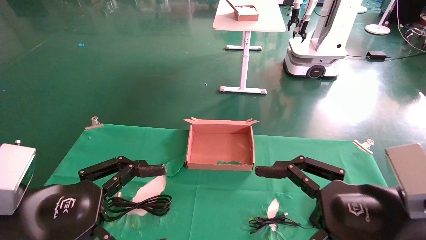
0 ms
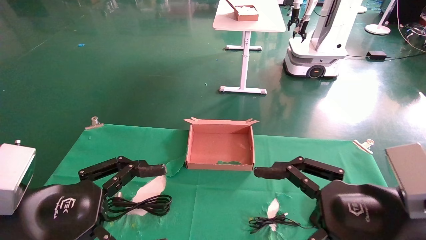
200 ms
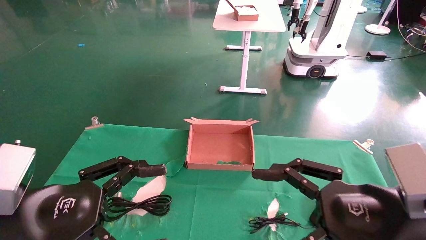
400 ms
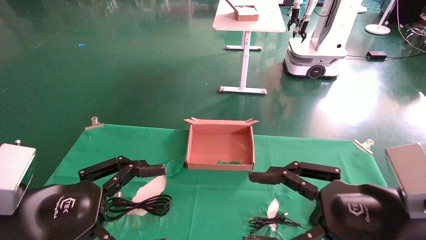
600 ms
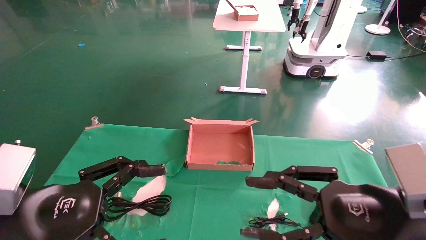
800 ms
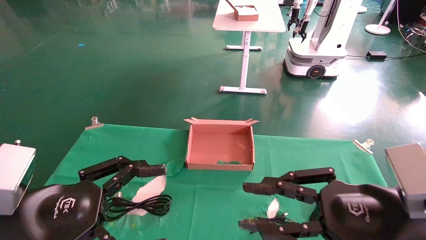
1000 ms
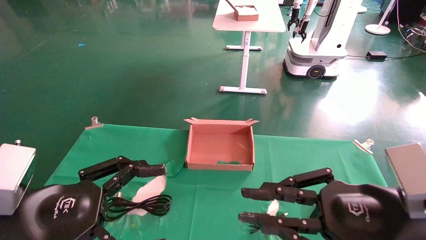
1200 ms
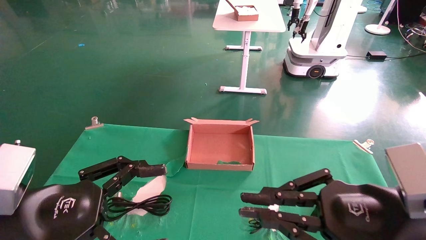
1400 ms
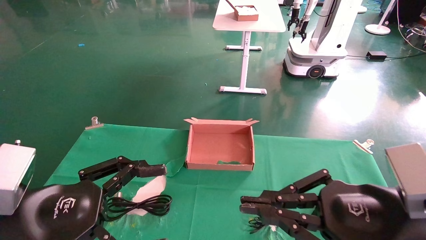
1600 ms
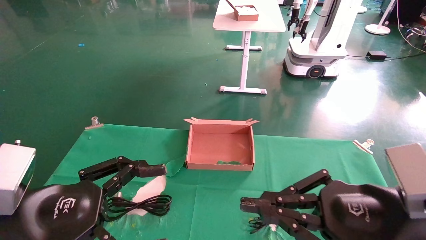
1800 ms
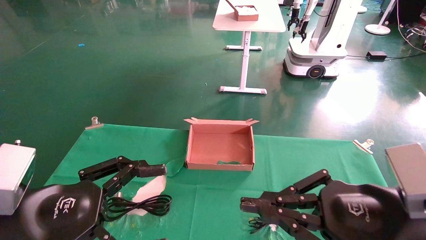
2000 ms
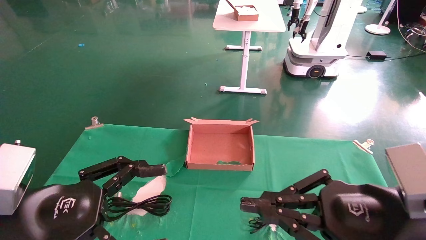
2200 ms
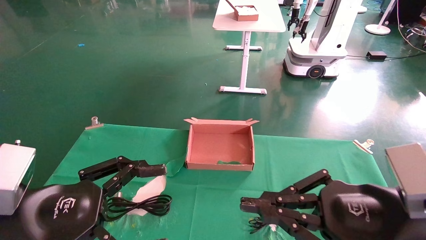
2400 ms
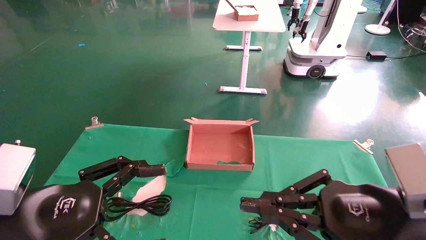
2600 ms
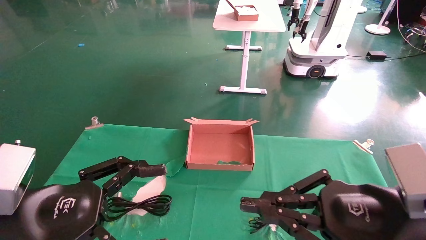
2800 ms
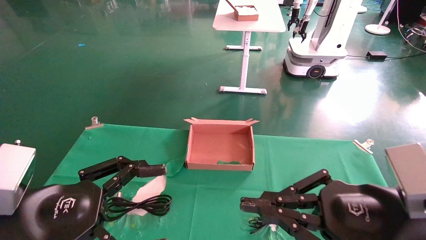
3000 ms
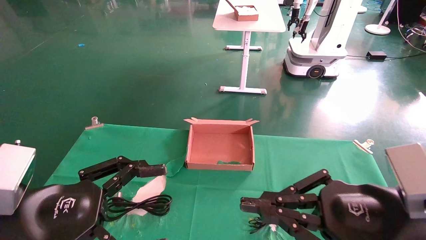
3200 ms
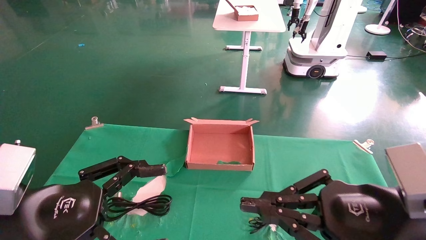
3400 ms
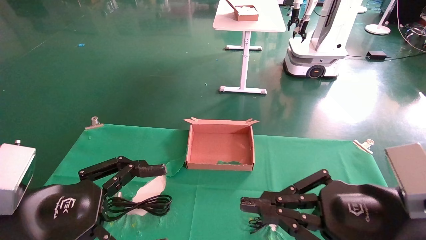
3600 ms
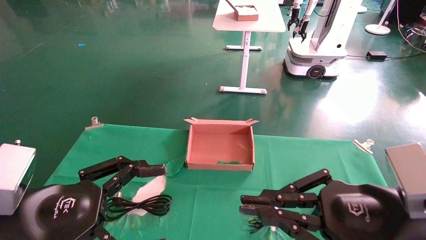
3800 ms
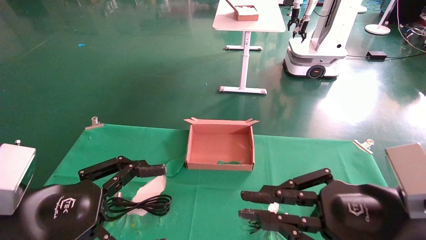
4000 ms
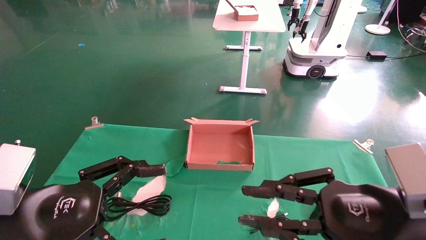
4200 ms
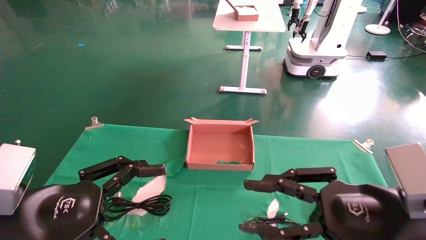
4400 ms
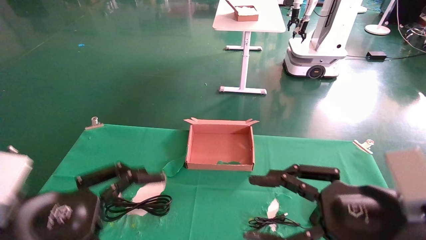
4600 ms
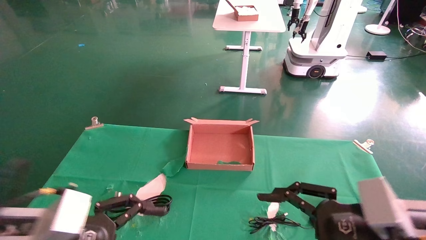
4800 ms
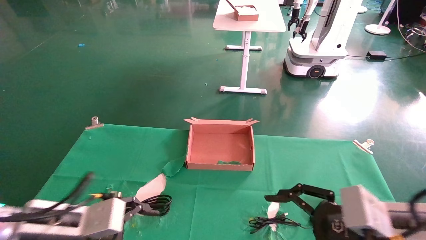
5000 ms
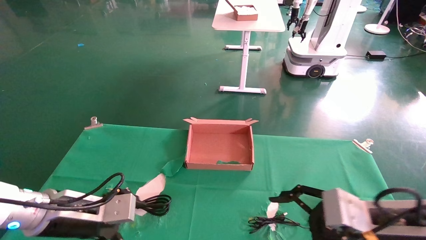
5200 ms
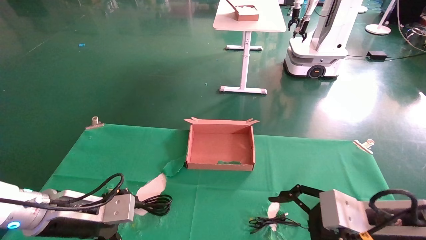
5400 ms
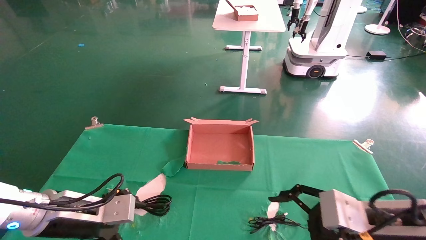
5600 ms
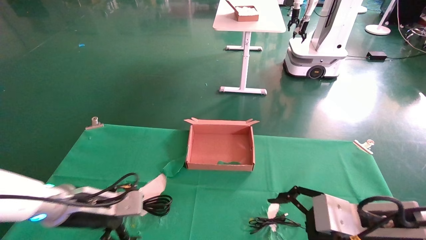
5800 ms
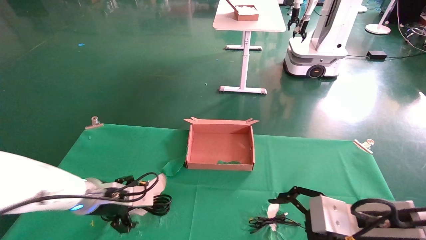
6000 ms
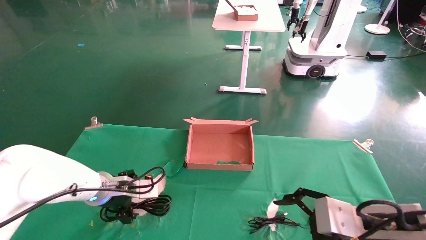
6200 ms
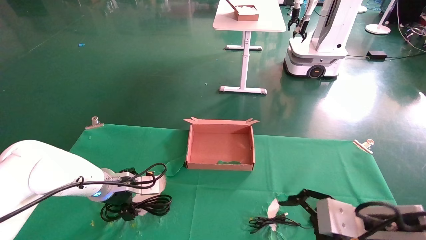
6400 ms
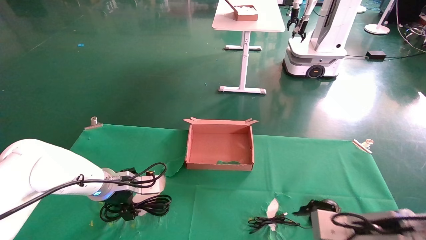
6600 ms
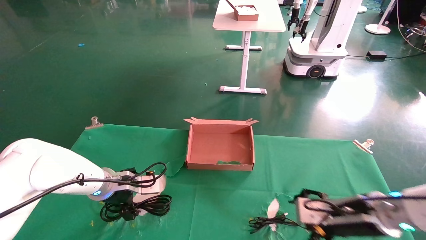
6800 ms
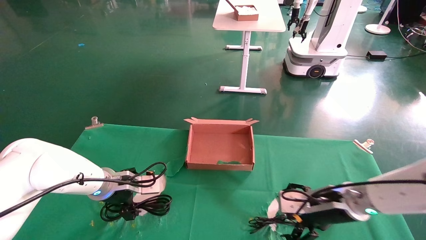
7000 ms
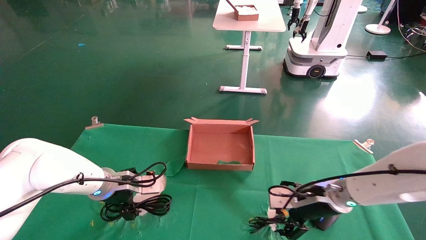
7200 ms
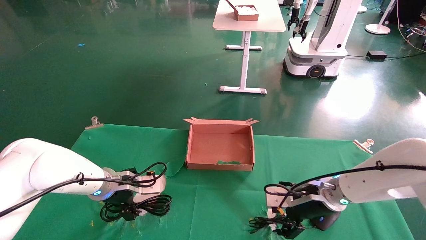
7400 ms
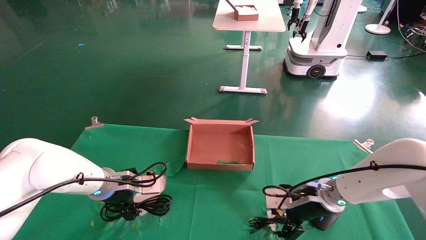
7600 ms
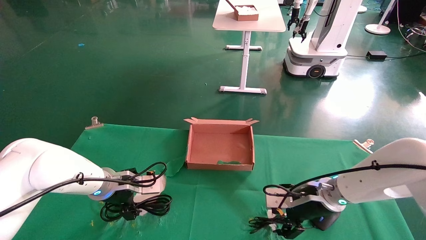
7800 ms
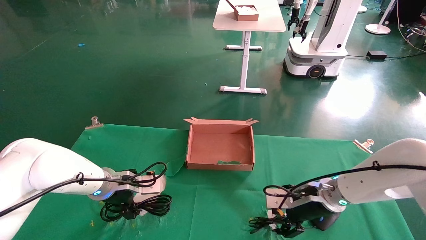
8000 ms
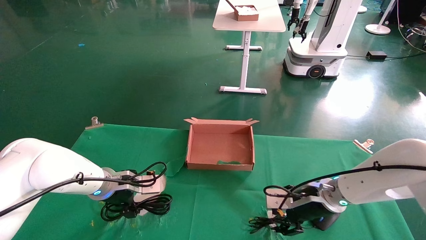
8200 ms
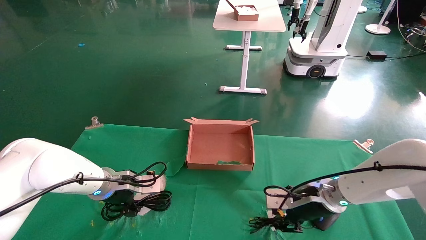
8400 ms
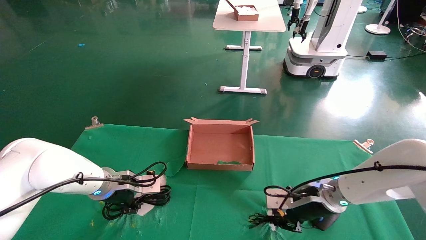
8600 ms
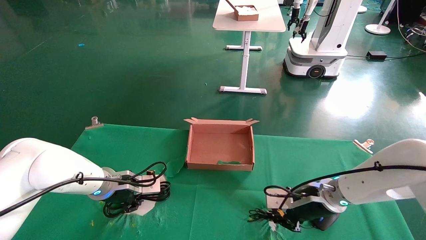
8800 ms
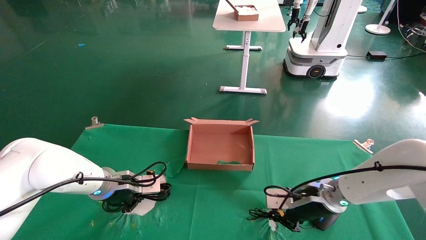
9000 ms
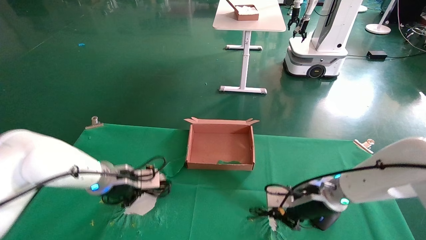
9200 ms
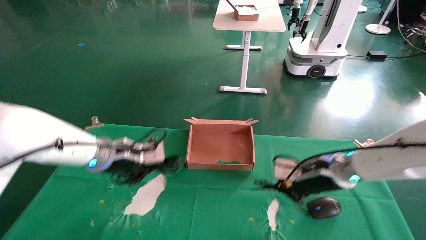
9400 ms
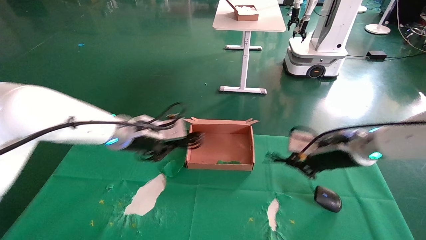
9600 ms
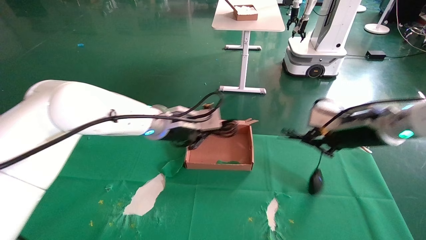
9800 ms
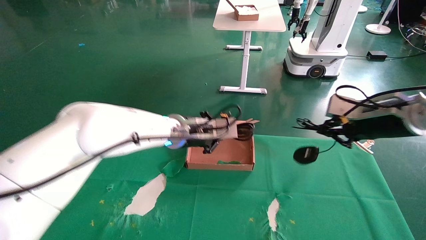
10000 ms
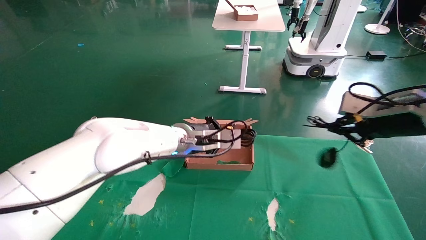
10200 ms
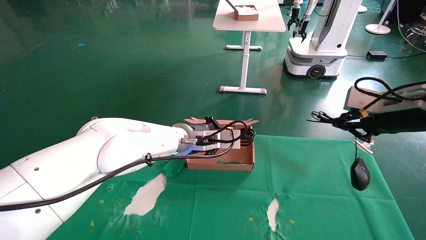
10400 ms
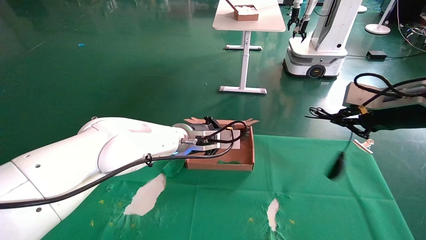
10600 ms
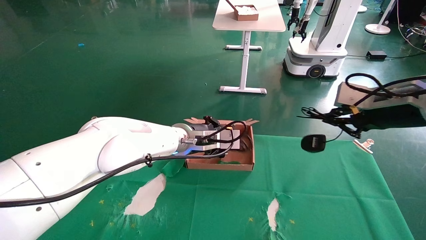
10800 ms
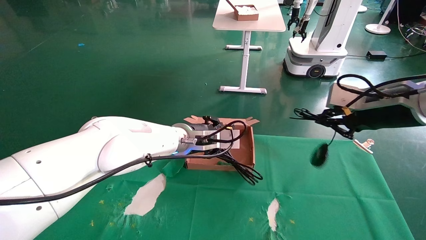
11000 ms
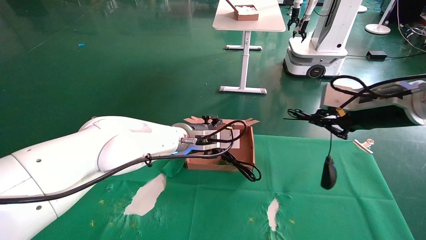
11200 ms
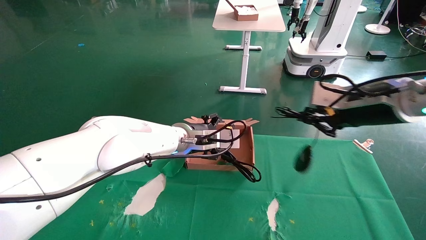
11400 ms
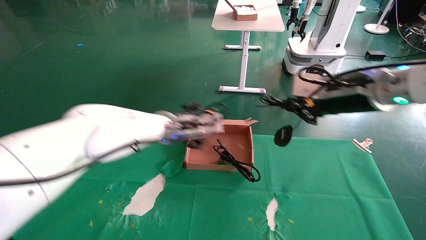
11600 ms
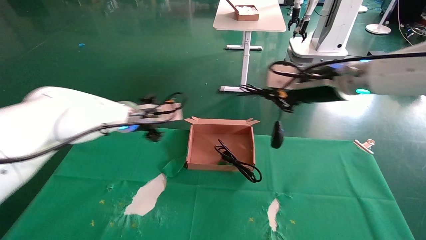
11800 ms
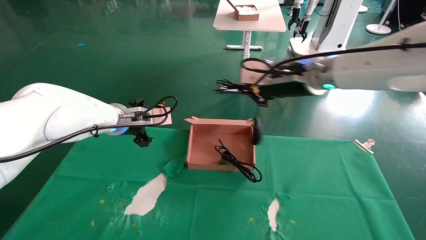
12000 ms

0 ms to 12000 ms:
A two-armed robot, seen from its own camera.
Step, 5000 ms to 9600 ms: Grab and lift both the mouse and power cord from the accessory packaging area at the same time.
0 ms to 1600 ms: The right gripper closes its fingers.
1600 ms to 4400 ms: Both grippers stay about where they are.
4400 ms to 6000 ms: The left gripper heads forward and downward, covering about 20 cm; the right gripper travels forward and downward by about 10 cm, and opens up.
6000 ms to 7600 ms: The right gripper moves forward, roughly 15 cm.
7600 ms to 9000 ms: The left gripper closes, while the right gripper closes up.
9000 ms to 10400 ms: The left gripper goes about 20 cm to the right and upward, while the right gripper heads upward and to the right, covering roughly 25 cm.
10400 ms to 12000 ms: The grippers both shift to the left by about 15 cm. The left gripper opens up.

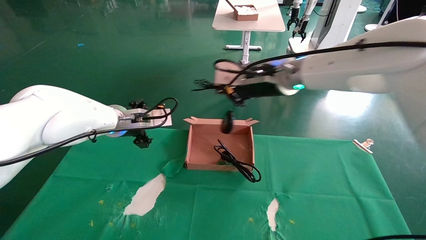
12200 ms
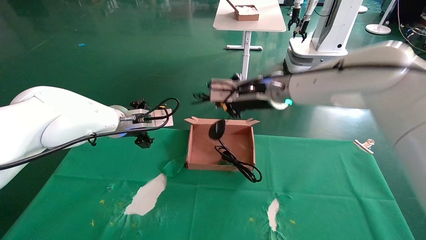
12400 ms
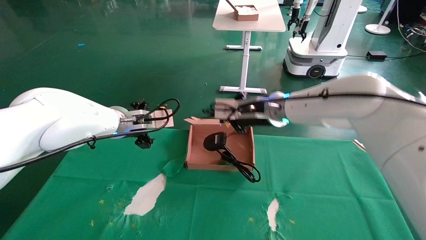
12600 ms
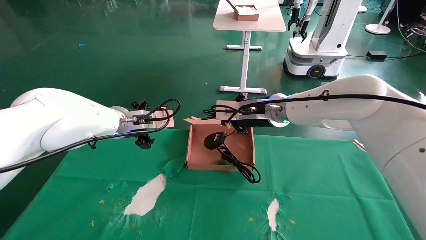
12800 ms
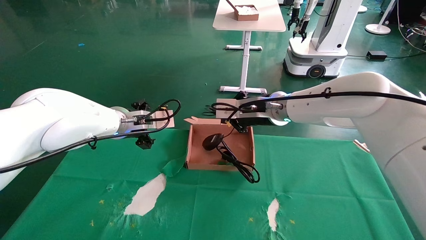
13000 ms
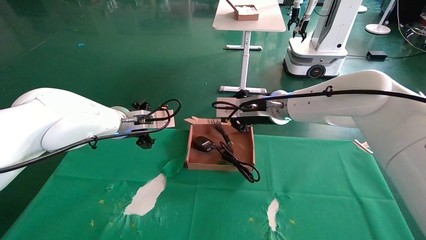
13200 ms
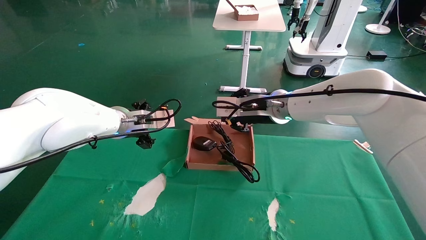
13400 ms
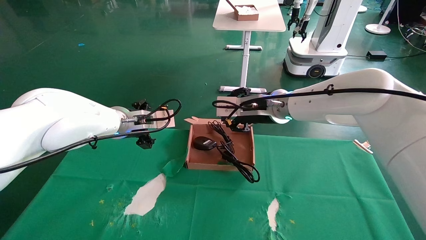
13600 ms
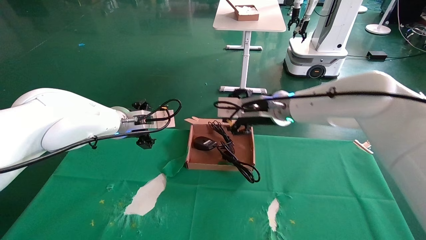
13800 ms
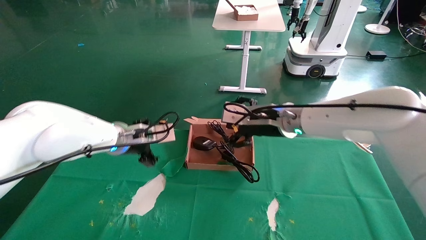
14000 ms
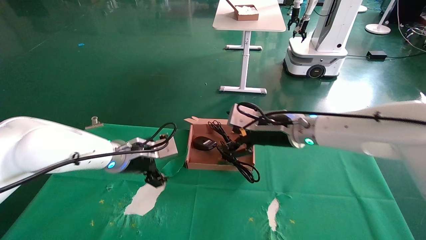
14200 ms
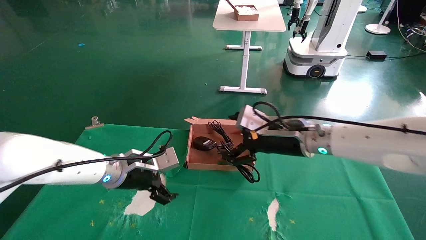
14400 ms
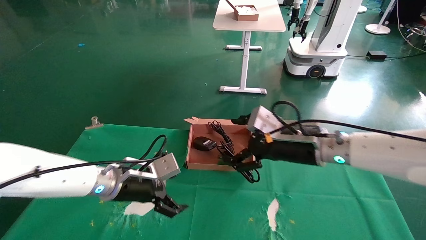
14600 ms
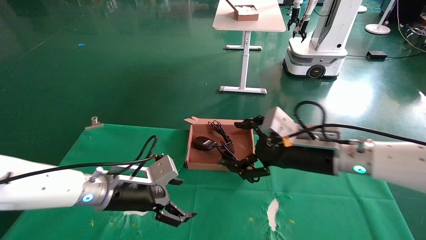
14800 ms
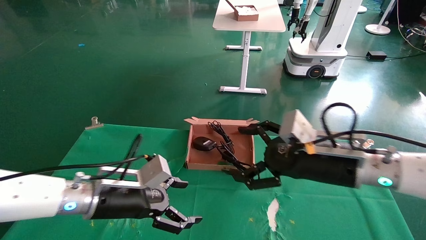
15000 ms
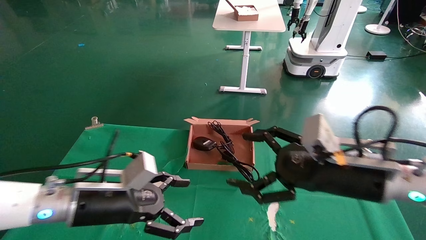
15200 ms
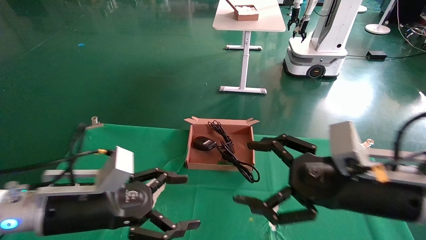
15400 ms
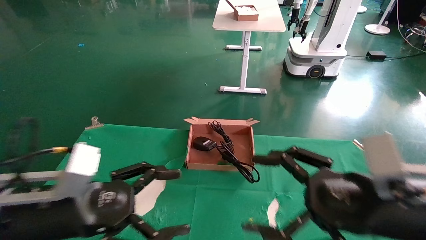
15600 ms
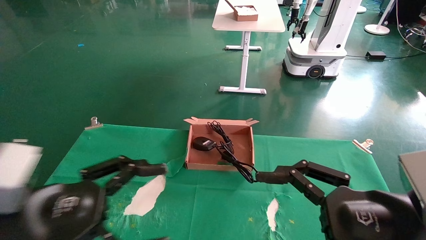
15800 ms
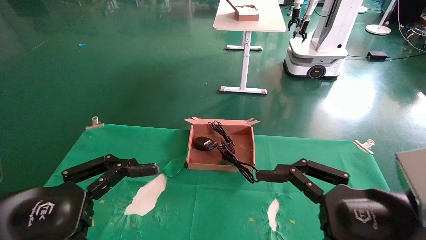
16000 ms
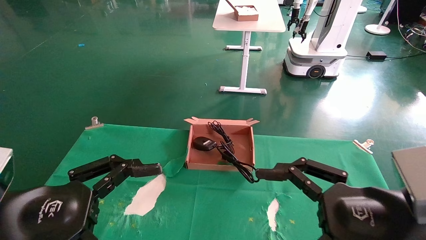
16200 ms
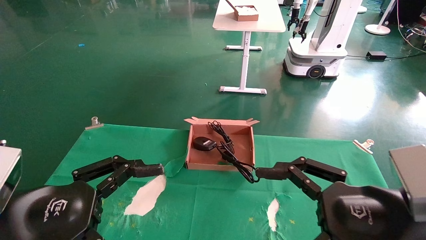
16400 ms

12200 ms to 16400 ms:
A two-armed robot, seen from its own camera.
12200 ms to 13600 ms: The right gripper moves downward, roughly 5 cm, and opens.
13600 ms to 15000 ms: The left gripper travels backward and downward by approximately 15 cm. Meanwhile the right gripper shifts some 20 cm backward, to the right and downward, and opens up.
15000 ms to 16400 ms: The right gripper moves backward, roughly 15 cm. The left gripper heads backward and upward, covering roughly 15 cm.
